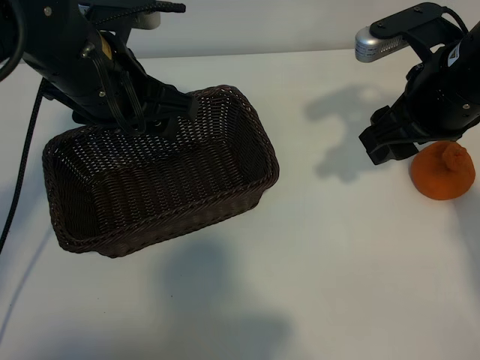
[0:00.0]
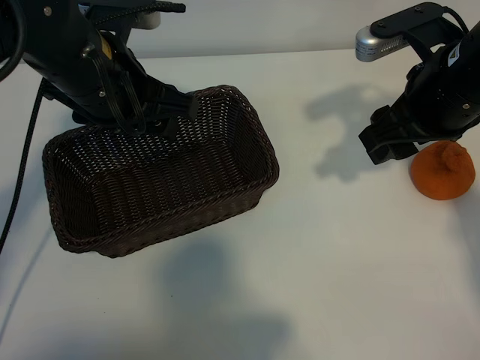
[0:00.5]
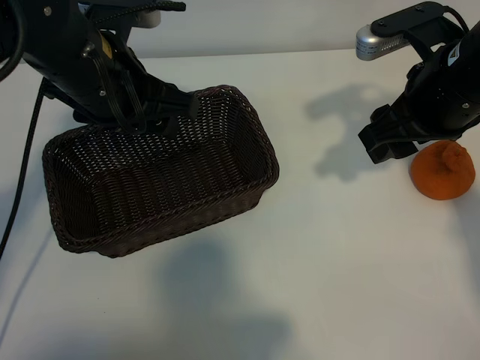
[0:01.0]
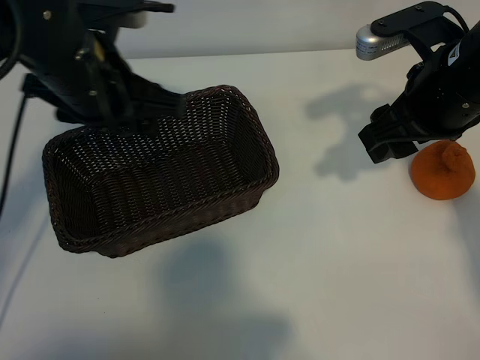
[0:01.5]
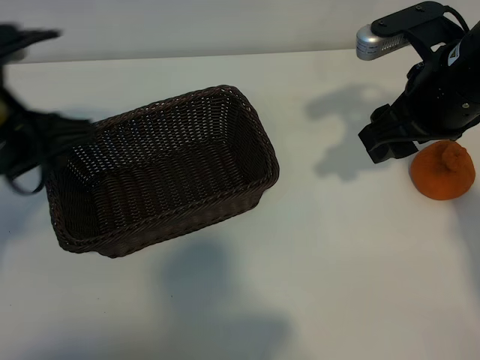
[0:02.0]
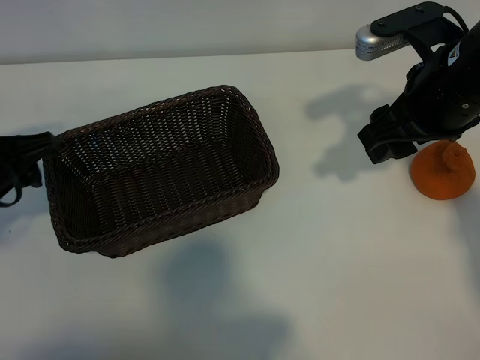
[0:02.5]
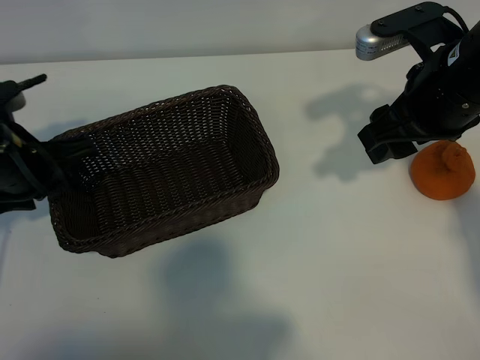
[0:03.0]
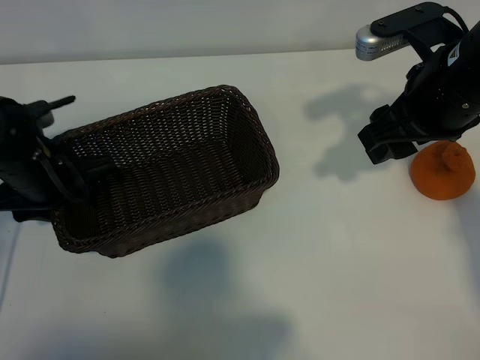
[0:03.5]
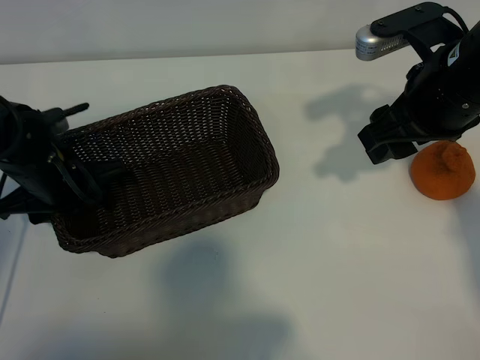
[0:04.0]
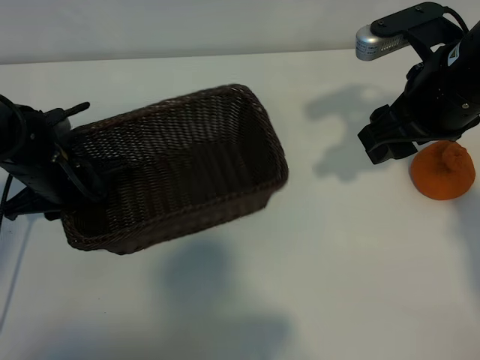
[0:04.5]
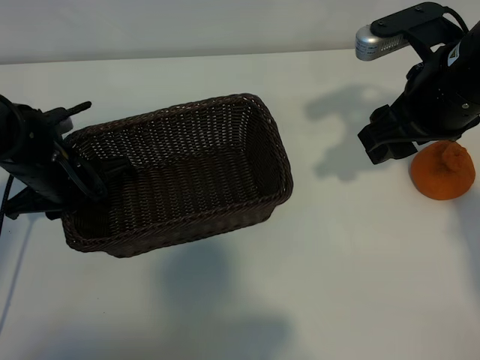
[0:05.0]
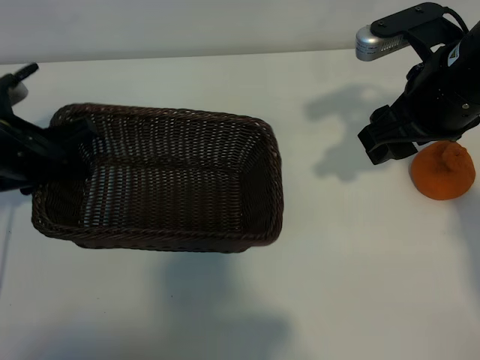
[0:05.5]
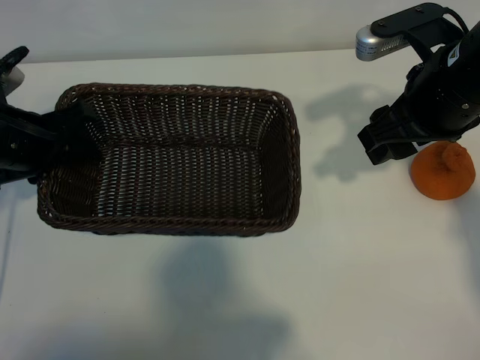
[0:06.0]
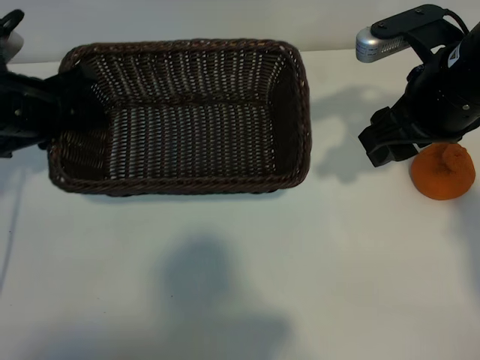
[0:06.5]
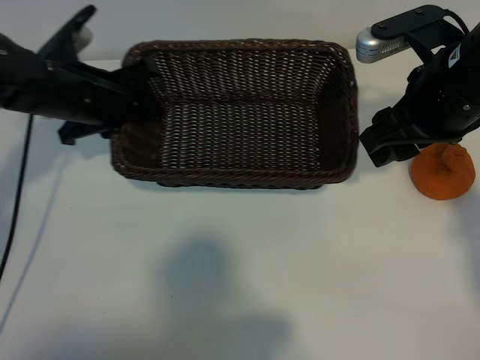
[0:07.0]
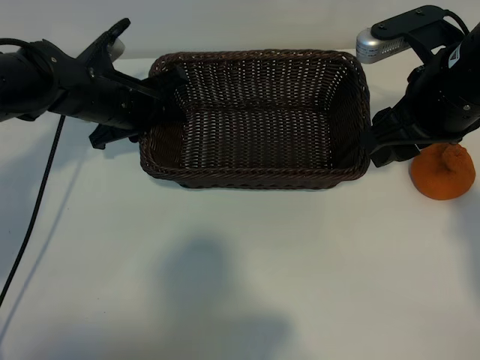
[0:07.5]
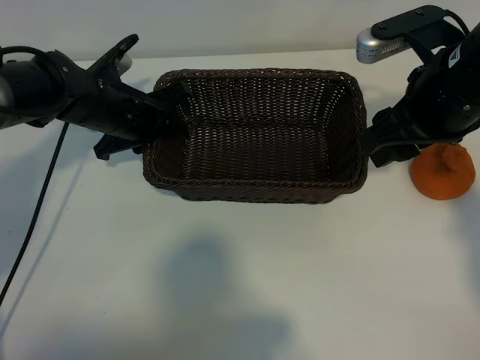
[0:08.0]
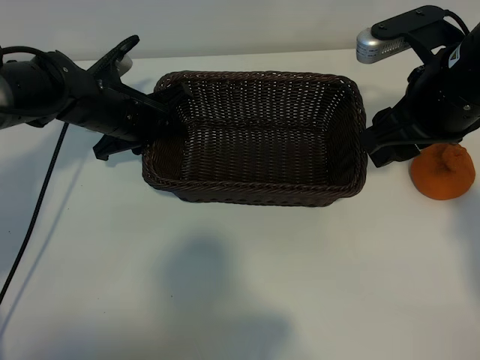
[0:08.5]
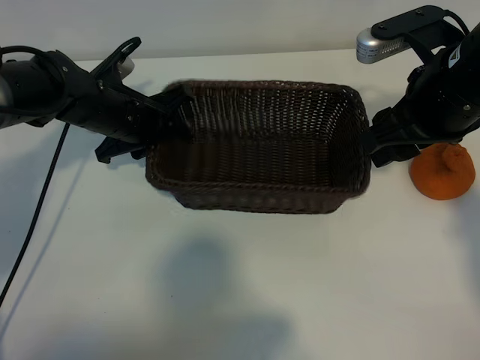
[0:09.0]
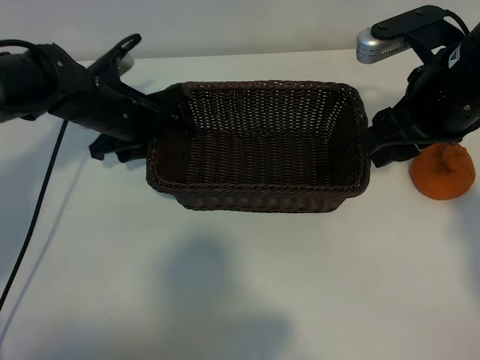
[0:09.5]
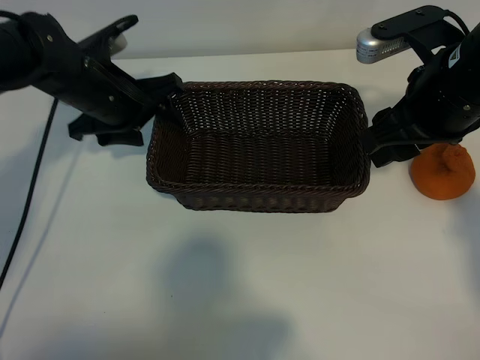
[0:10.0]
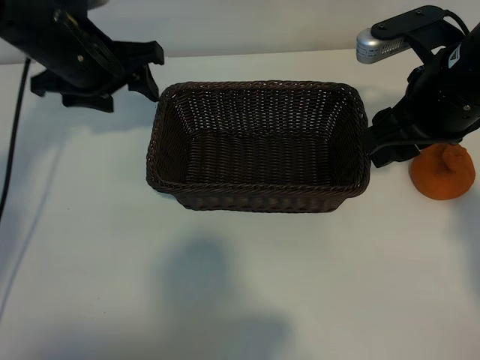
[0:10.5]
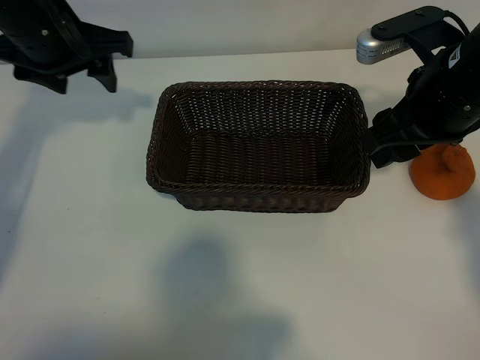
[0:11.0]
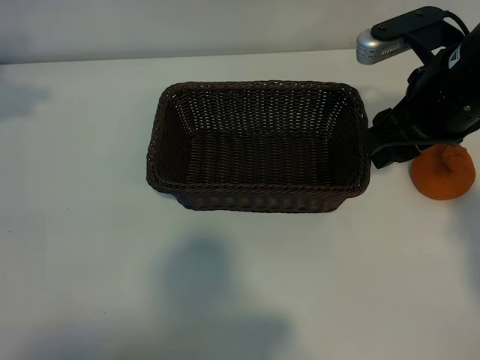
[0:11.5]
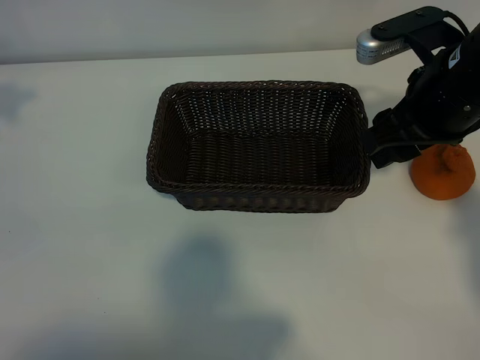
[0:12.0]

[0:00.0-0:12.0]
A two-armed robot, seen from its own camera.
Task of the whole recording: pick up the orange and put it into the basket.
Step, 0:01.0 to 0:04.5: Grasp the basket with left gripper.
Step, 0:05.0 to 0:09.0: Place the basket in the center of view with left gripper.

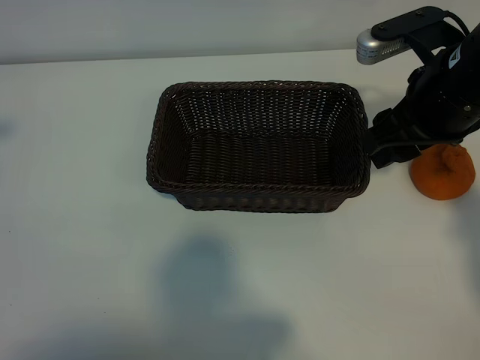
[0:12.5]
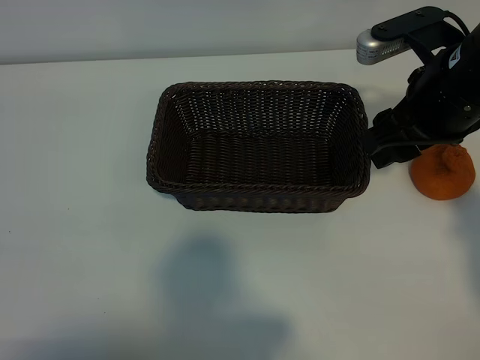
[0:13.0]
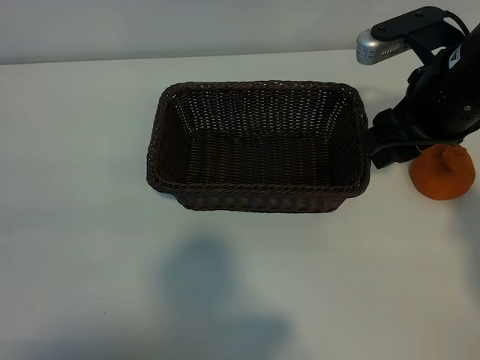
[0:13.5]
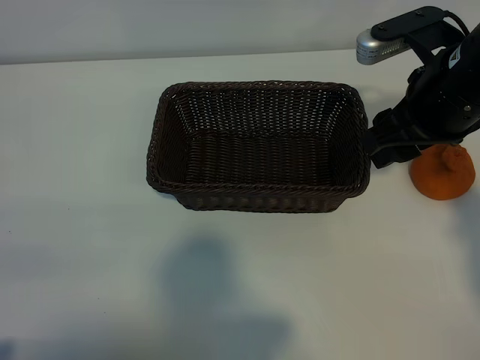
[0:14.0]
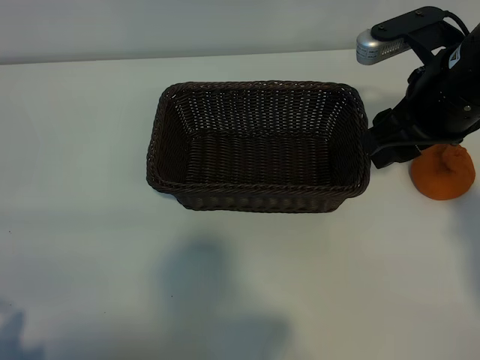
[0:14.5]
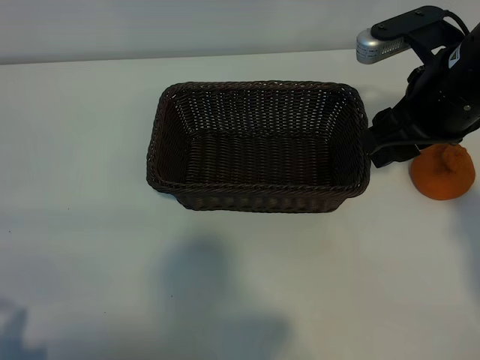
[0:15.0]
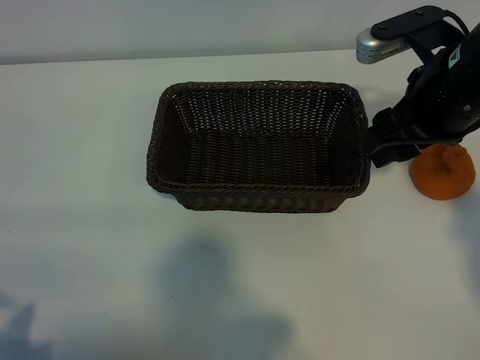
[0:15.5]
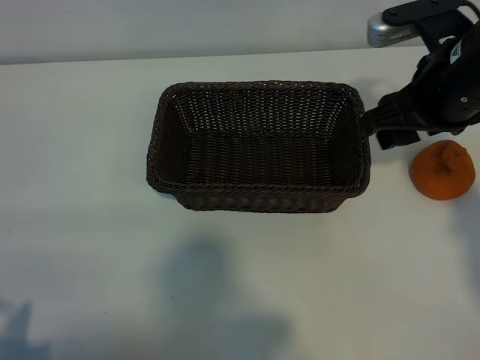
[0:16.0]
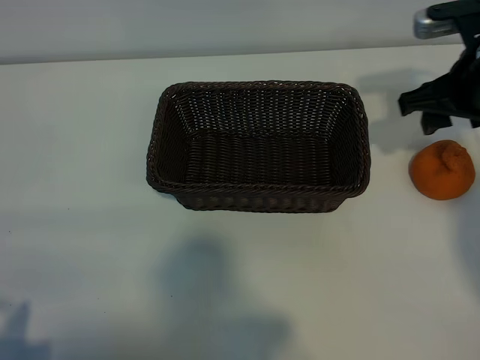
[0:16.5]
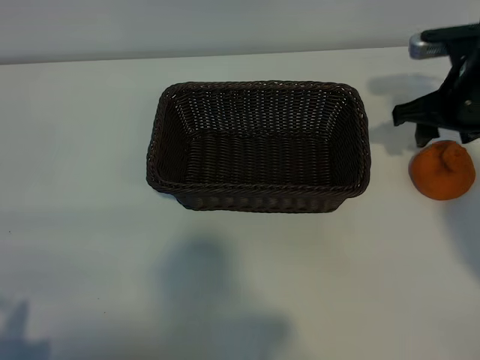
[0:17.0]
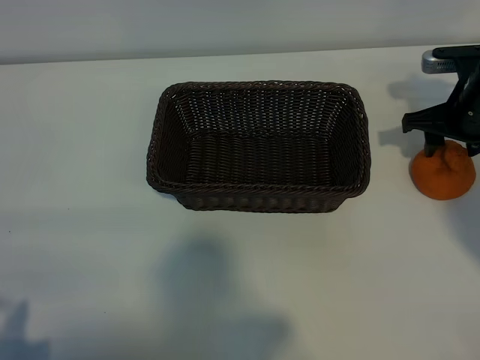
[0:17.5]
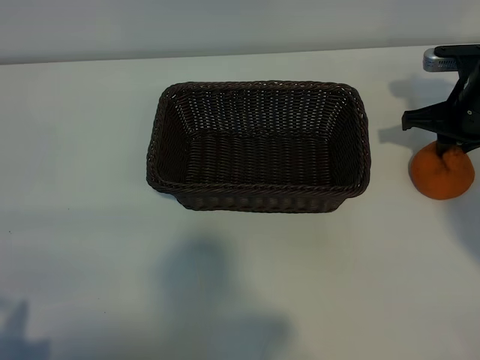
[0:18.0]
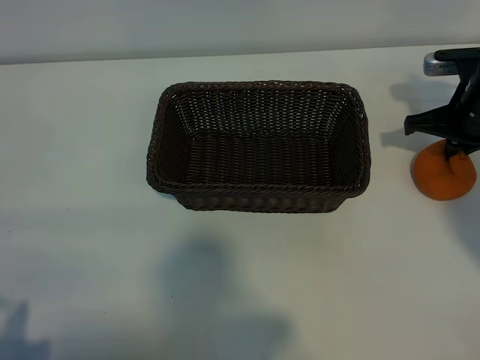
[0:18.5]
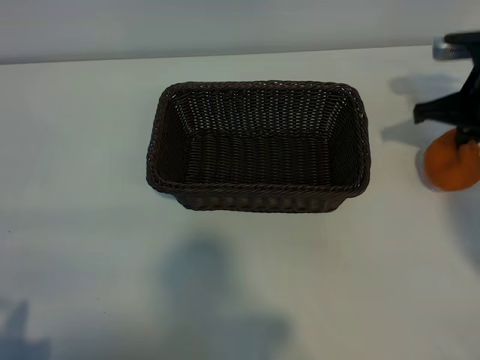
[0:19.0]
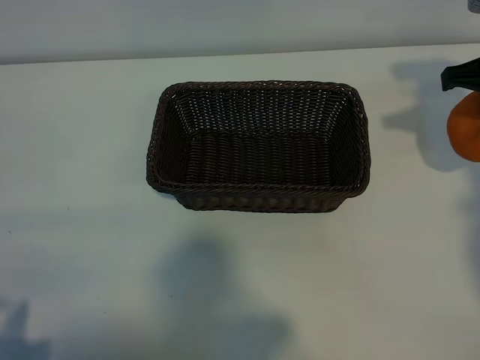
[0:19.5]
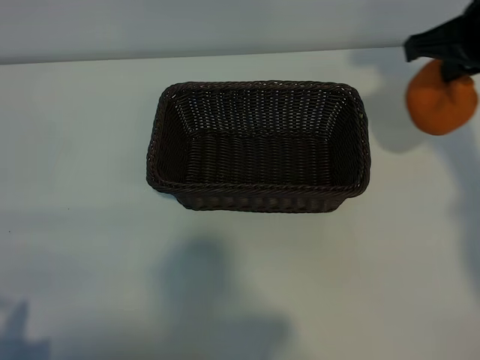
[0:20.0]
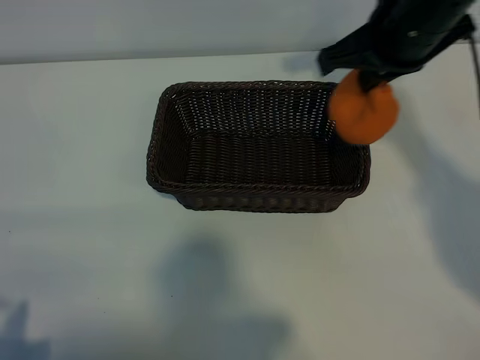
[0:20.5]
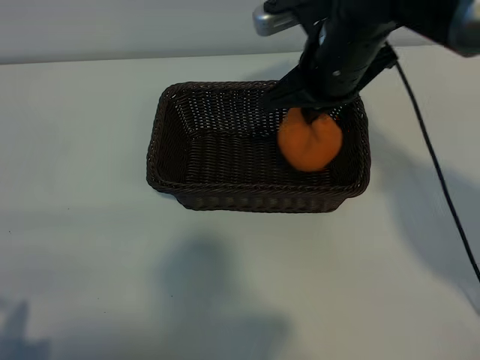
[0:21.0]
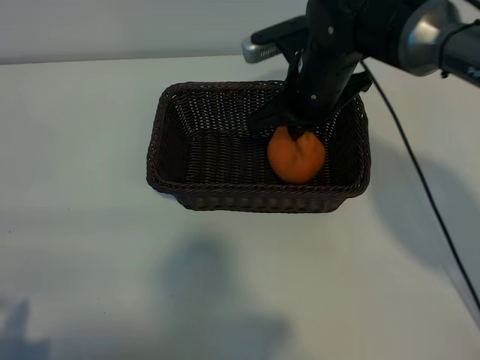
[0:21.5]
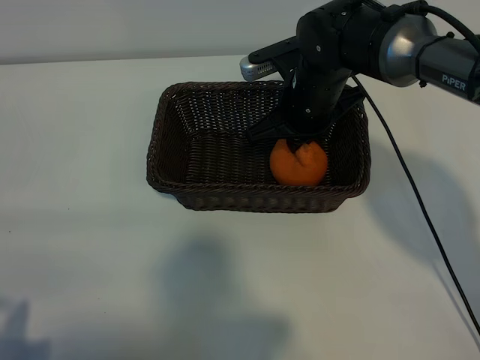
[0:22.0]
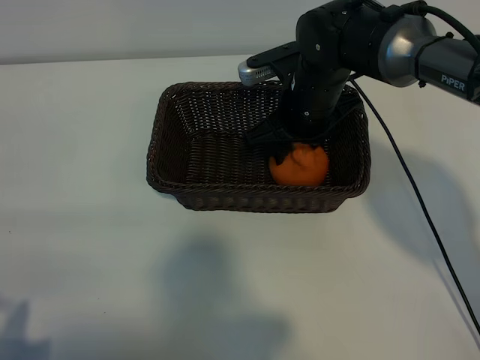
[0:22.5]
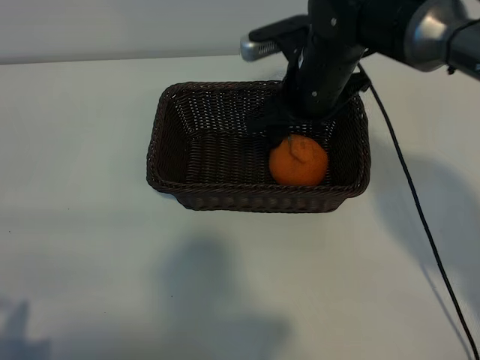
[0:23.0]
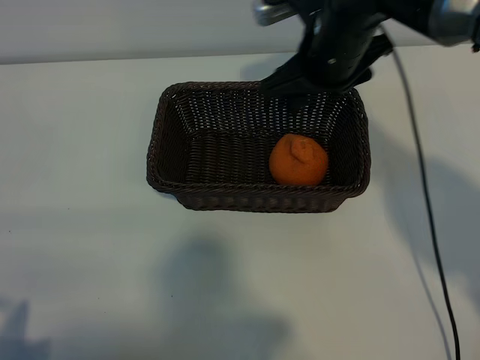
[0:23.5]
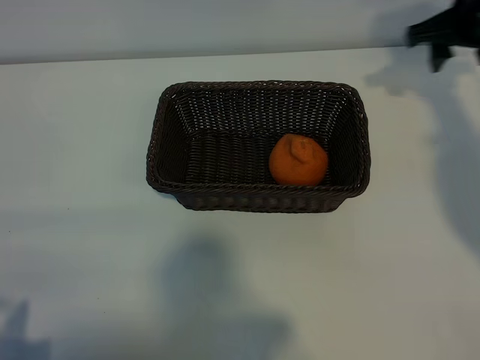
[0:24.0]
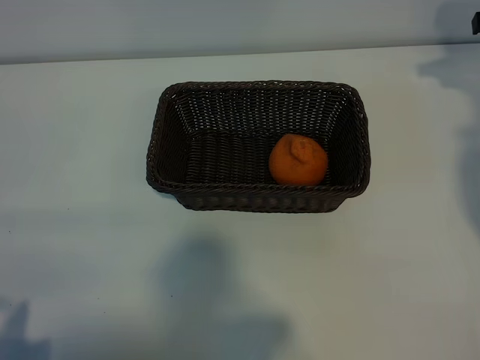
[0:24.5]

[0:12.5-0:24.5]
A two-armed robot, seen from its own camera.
Task of the whole recording: pick up the orange and put it into the basket.
Step, 0:12.5 to 0:18.5: Grasp the orange with right gripper.
Step, 0:19.0 to 0:22.5: Place the orange in the basket with right gripper.

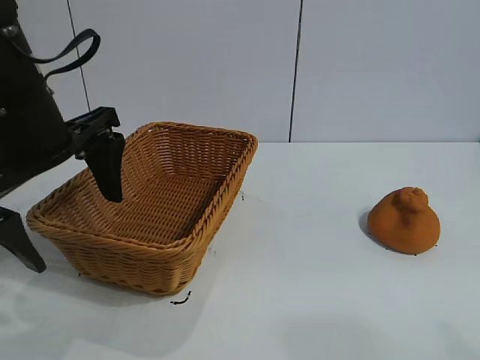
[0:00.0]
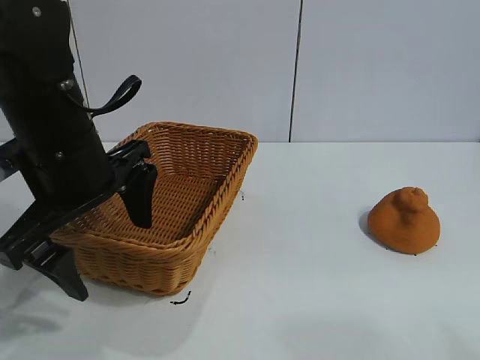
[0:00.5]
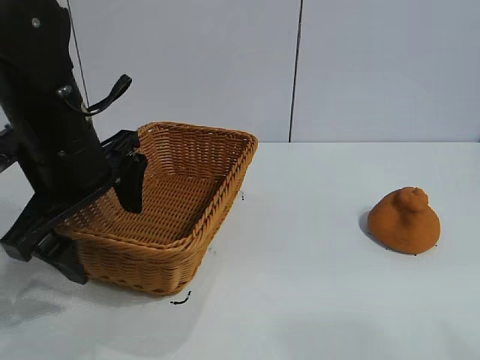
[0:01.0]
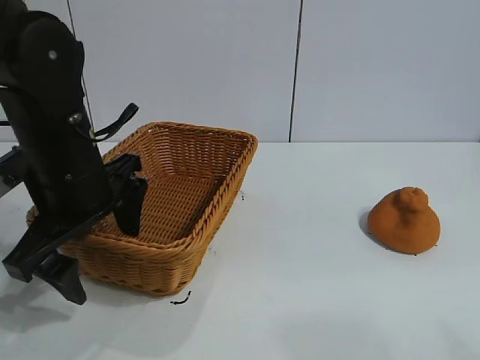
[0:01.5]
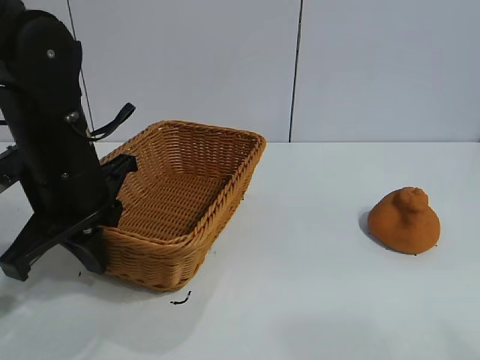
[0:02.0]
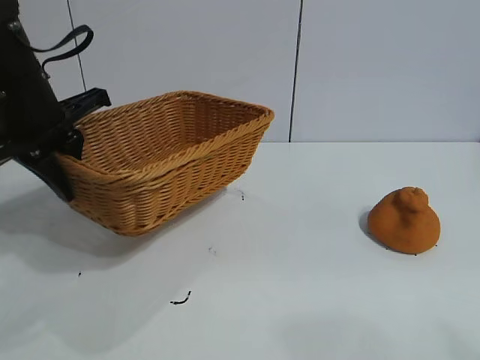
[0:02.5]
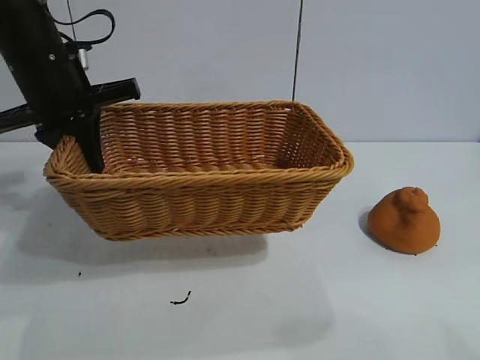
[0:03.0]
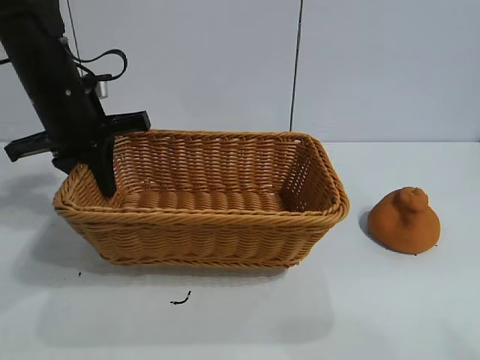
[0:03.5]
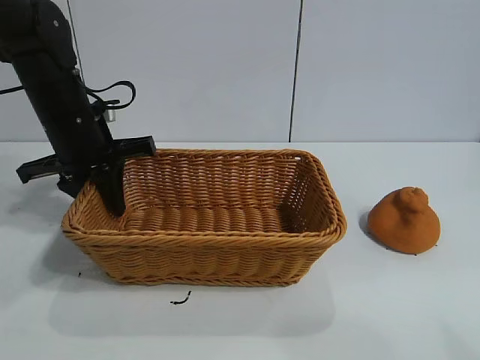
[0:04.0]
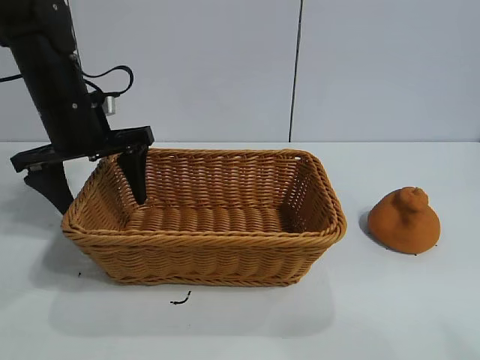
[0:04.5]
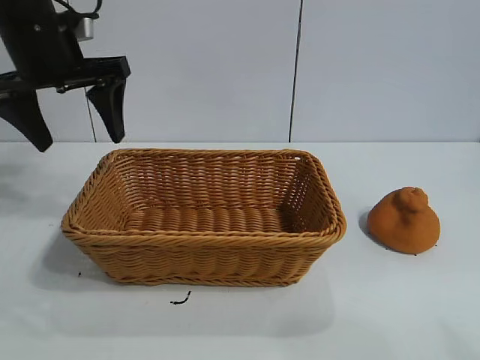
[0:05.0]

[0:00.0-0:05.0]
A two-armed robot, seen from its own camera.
Task of the whole recording: pick up the orange and put it into the basket.
Step, 0:00.0 to 0:02.0: Grasp the basket with left gripper.
Step, 0:02.5 to 0:04.0: Place the basket in the center of view with left gripper.
